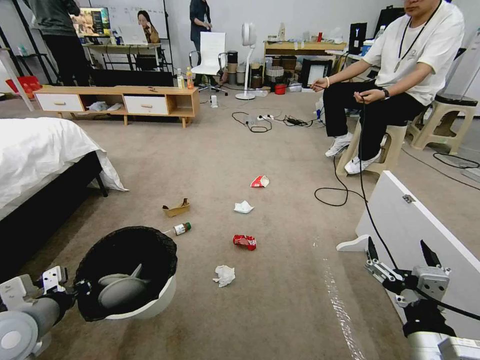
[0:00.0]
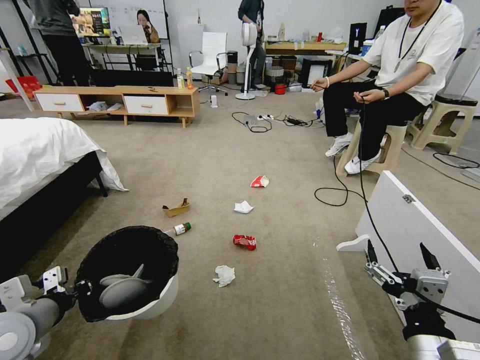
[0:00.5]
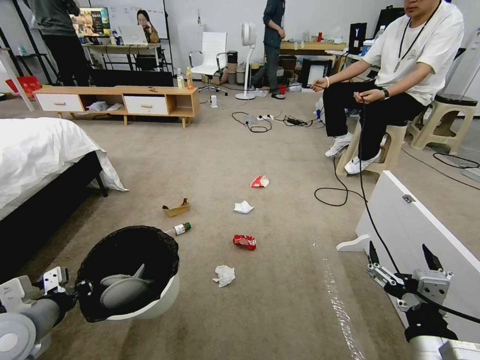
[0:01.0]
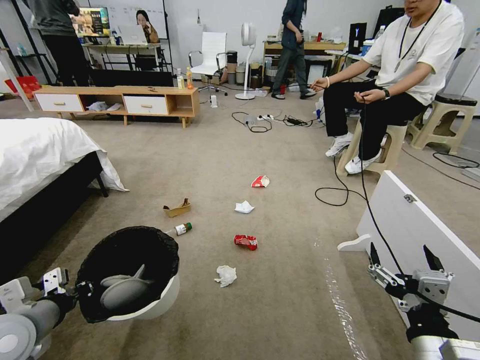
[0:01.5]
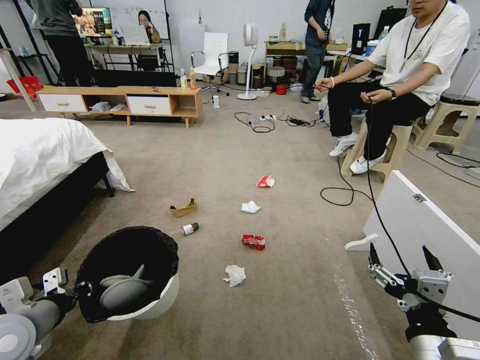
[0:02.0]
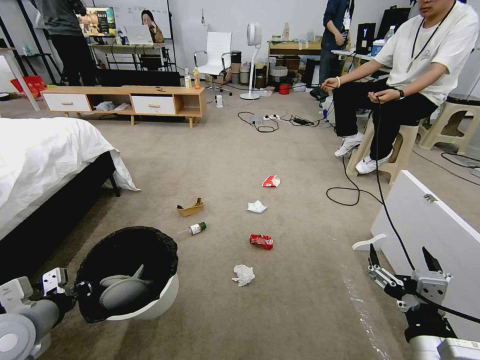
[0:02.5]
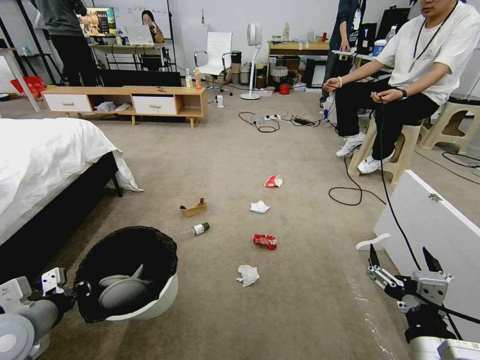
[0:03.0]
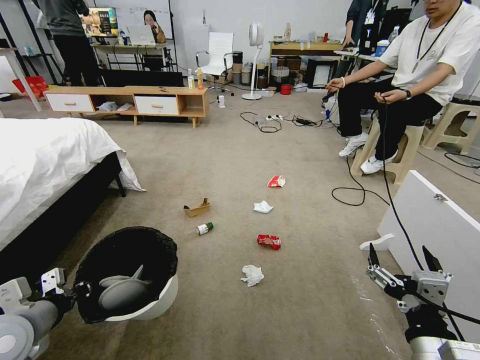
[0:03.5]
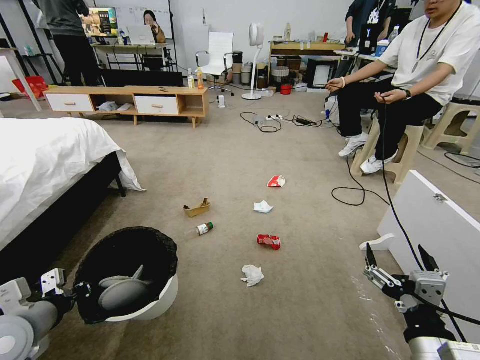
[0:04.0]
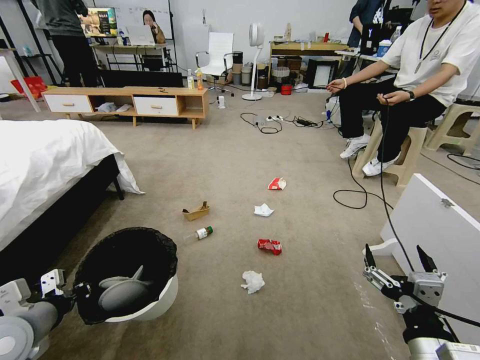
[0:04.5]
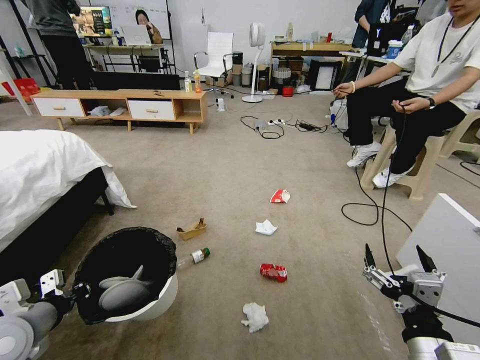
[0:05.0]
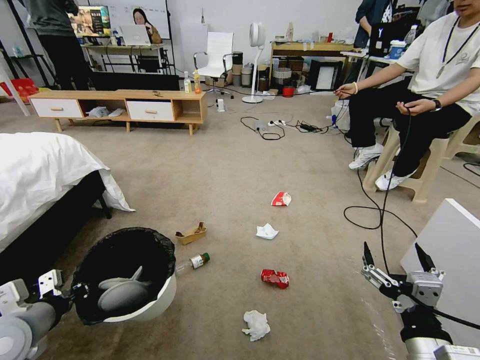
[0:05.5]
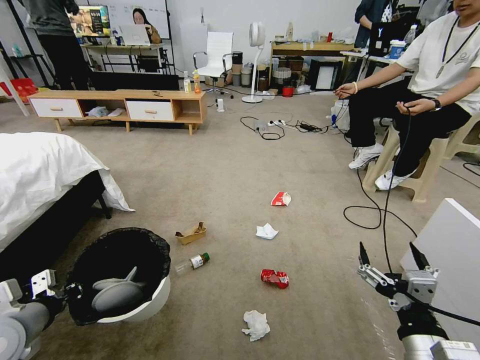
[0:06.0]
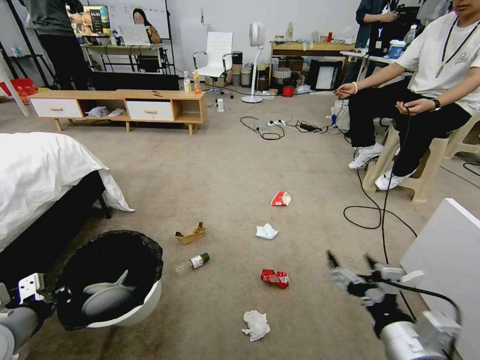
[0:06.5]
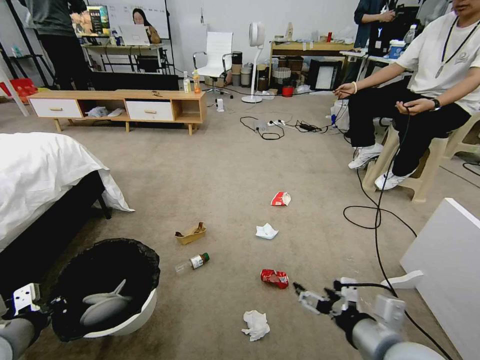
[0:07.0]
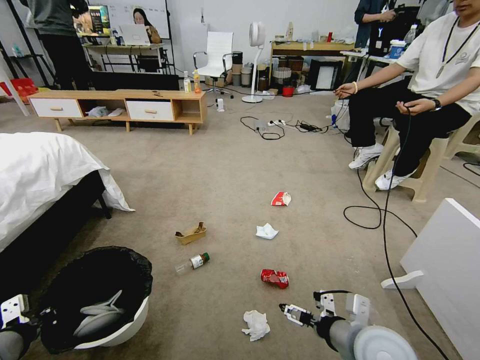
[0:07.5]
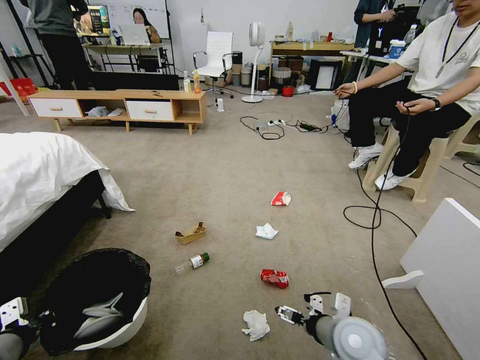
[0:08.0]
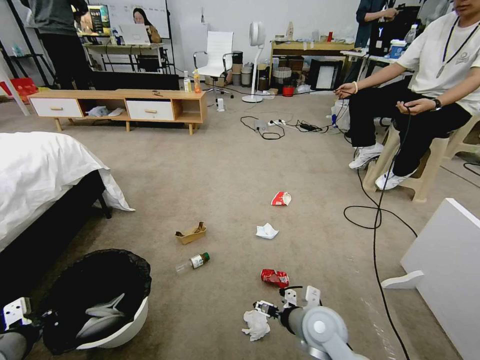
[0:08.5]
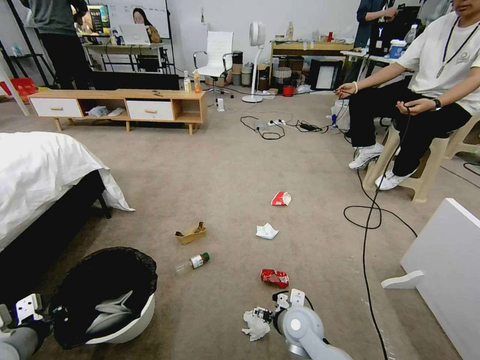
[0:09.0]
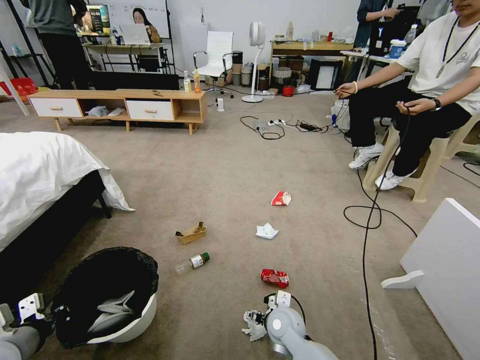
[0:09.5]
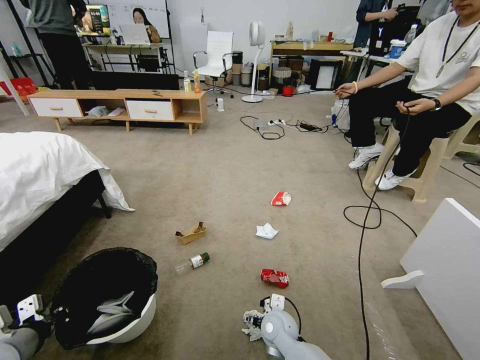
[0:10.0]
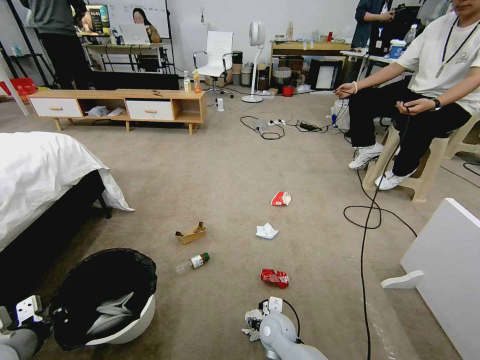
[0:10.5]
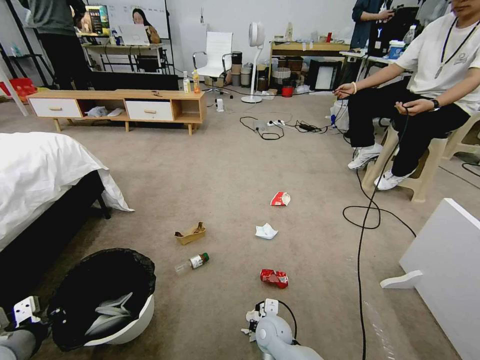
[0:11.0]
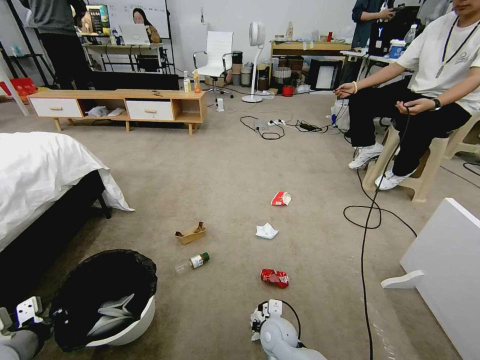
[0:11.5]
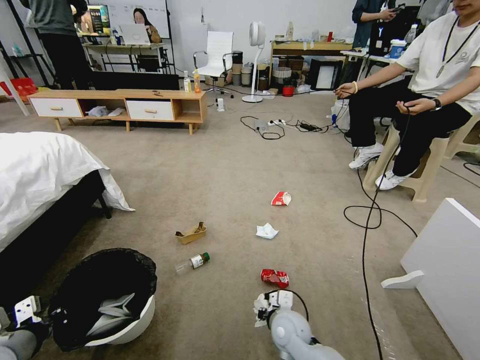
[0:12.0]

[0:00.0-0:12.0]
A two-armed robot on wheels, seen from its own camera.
Task of the whole recording: Pick up the trash bin and place the garbage on the floor into it.
0:06.0 to 0:08.0: The right gripper travels forward and downward by roughly 15 cm.
0:08.0 to 0:10.0: The right gripper moves to the left, downward and forward, some 20 cm.
0:10.0 to 0:12.0: The right gripper closes up.

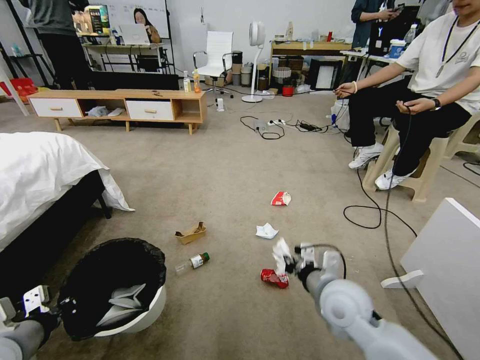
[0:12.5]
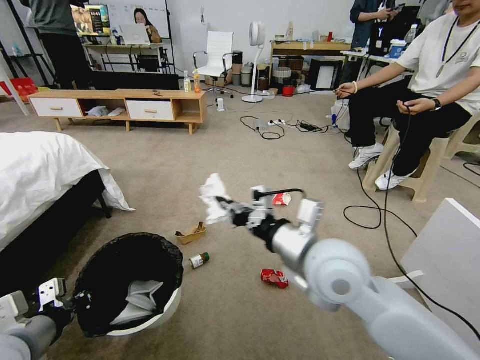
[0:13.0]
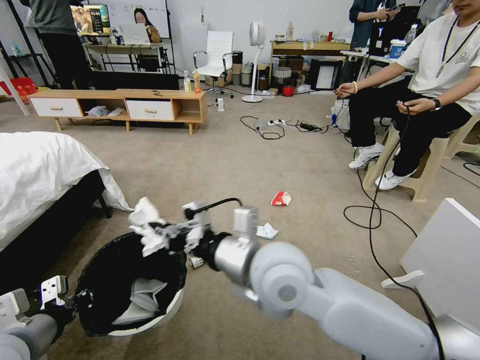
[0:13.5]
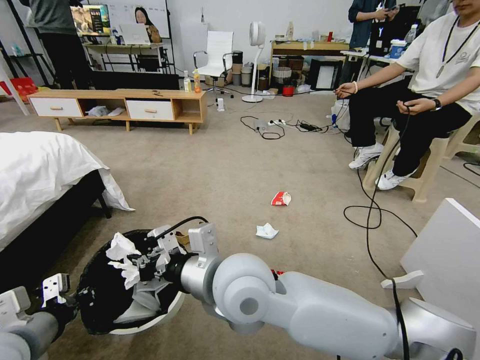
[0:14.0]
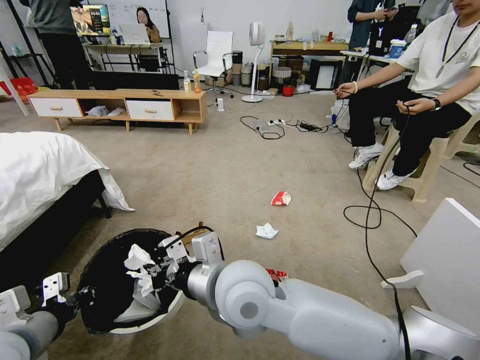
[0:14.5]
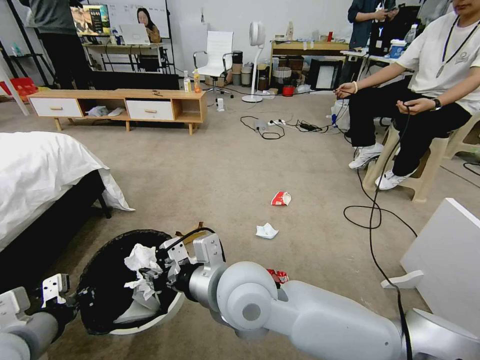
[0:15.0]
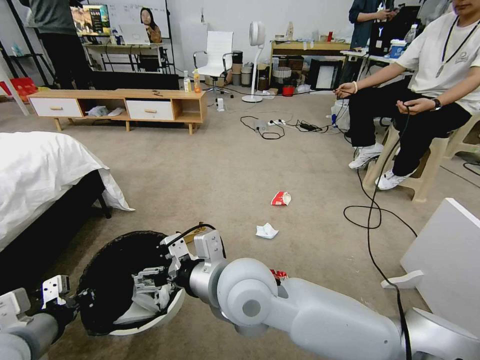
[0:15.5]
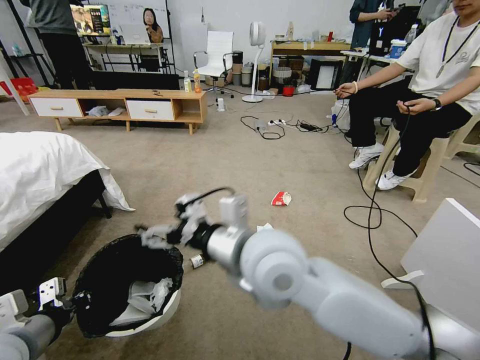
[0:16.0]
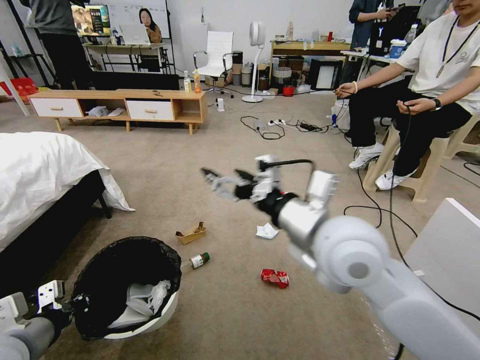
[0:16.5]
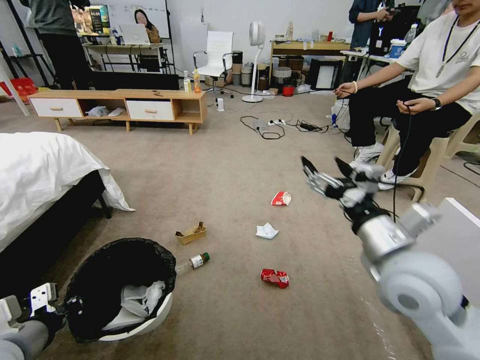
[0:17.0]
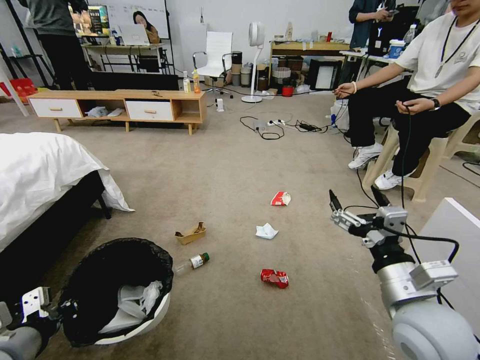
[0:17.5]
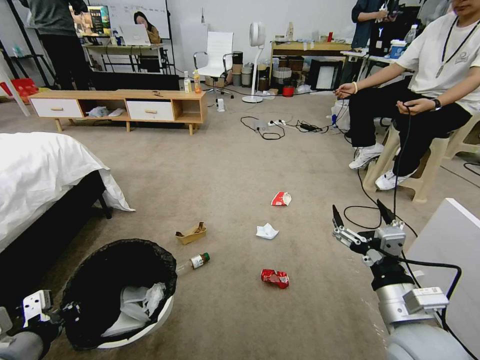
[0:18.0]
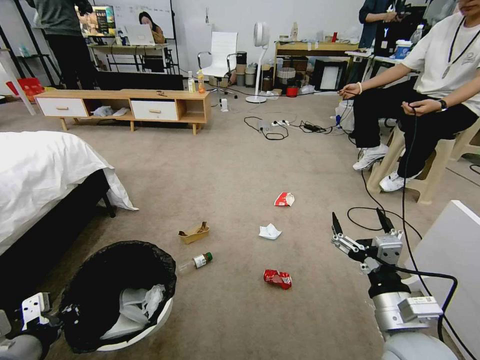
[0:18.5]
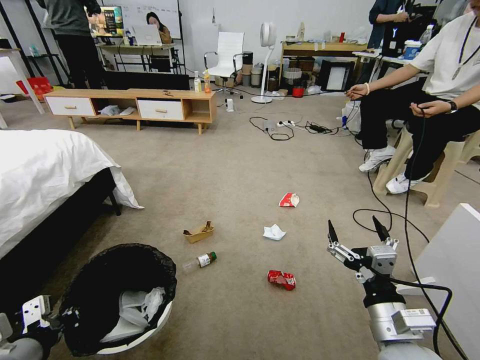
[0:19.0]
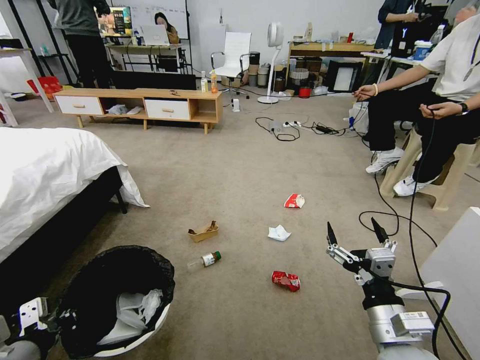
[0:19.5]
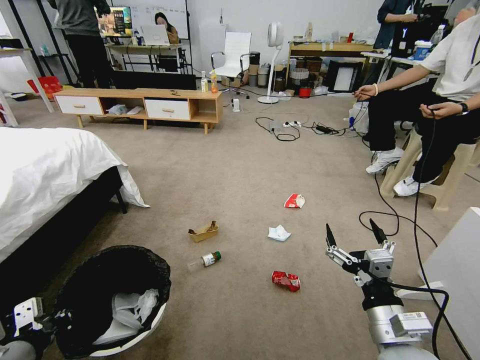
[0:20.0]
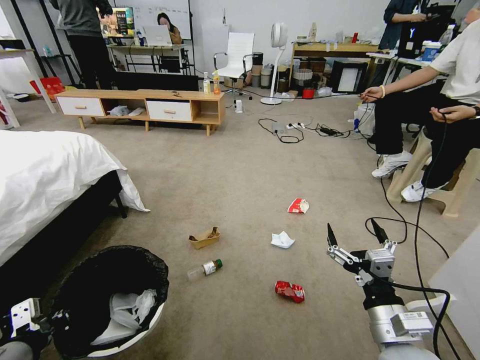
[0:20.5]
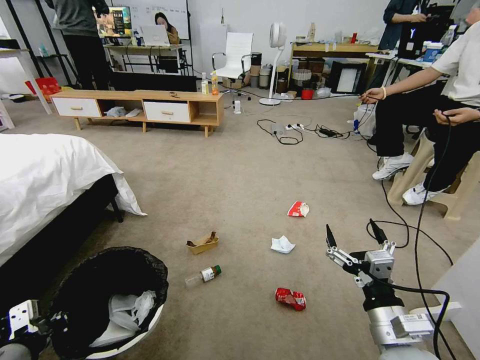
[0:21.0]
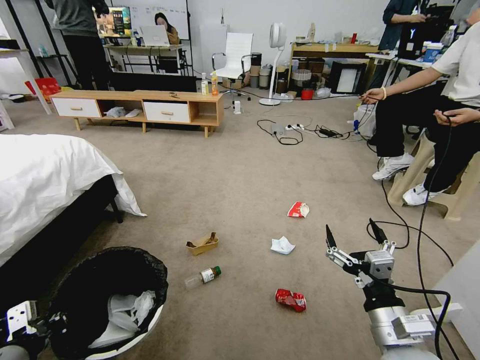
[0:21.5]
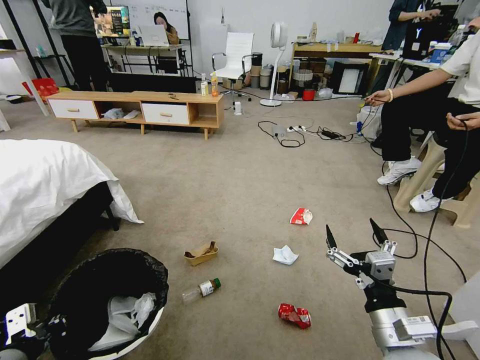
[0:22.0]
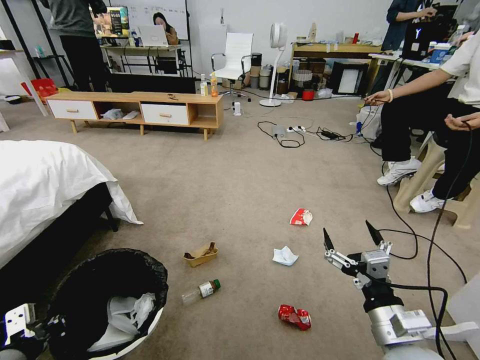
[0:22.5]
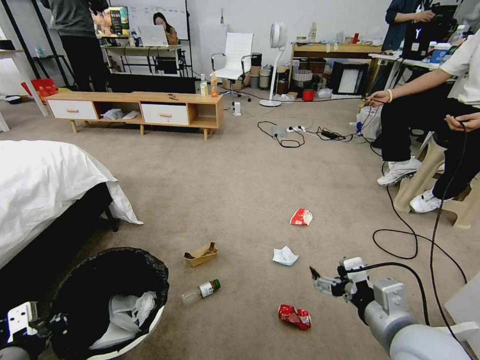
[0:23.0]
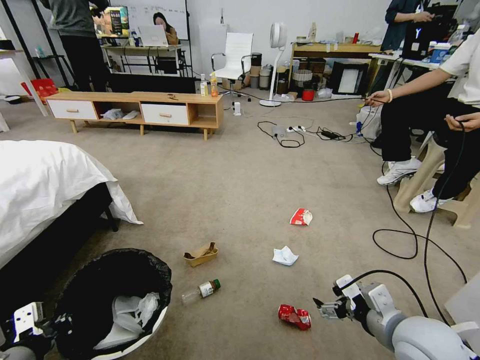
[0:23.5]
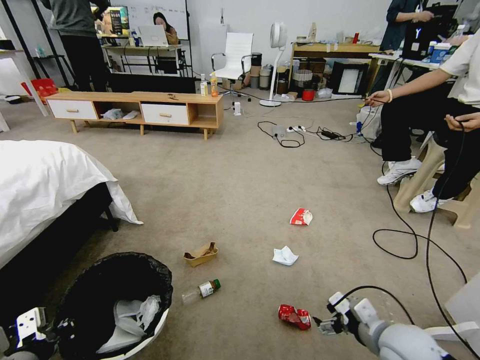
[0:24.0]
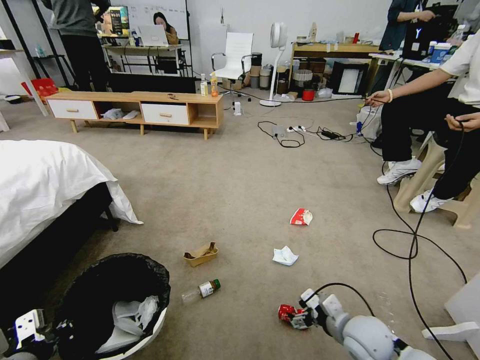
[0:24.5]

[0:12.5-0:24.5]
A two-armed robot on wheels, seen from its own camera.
Task of the whole recording: Pick up the trash bin and place the garbage on the floor into it.
0:12.5 to 0:14.5: The right gripper travels to the left and upward by roughly 25 cm; the left gripper ends up approximately 5 cm from where it was.
0:14.5 to 0:16.5: The right gripper shifts about 15 cm to the right and upward, and opens.
0:16.5 to 0:18.5: The right gripper is displaced downward, to the right and backward by about 25 cm.
0:22.5 to 0:24.5: The right gripper travels downward and forward by roughly 15 cm.

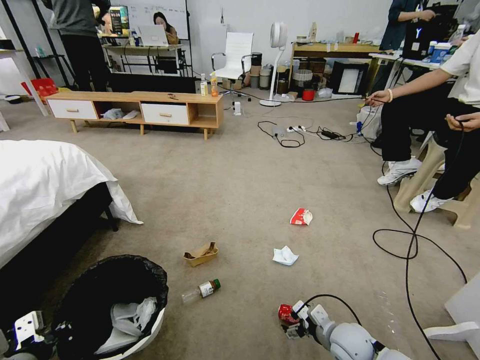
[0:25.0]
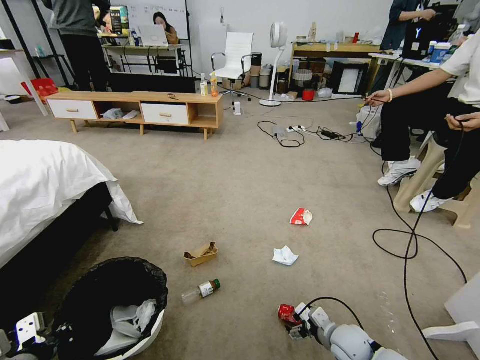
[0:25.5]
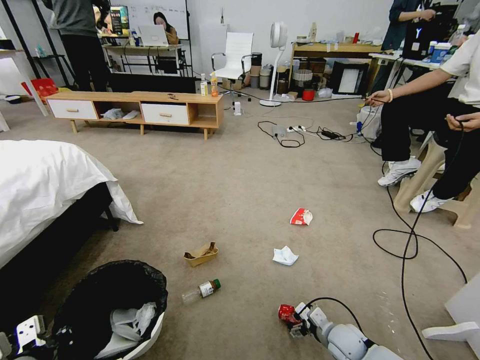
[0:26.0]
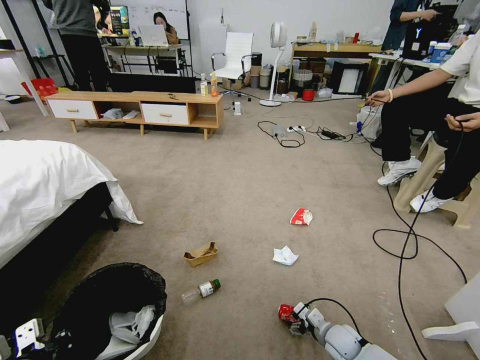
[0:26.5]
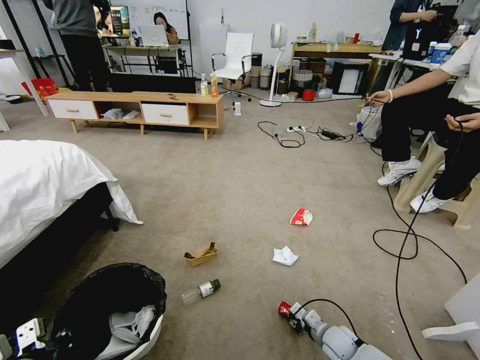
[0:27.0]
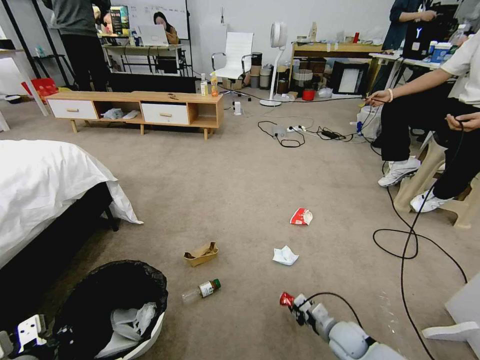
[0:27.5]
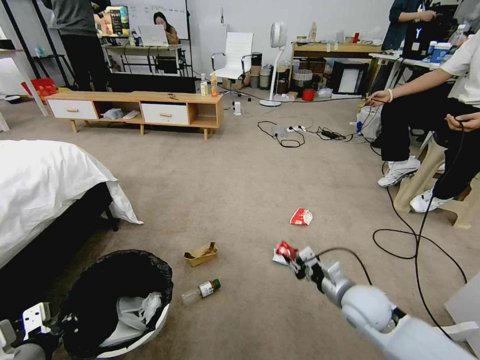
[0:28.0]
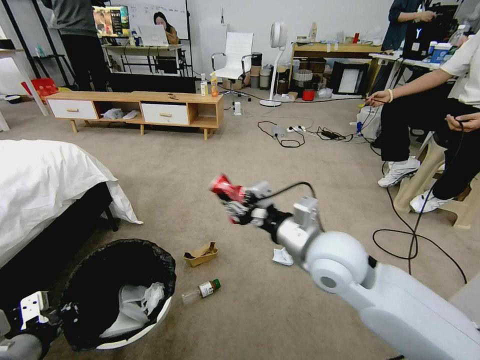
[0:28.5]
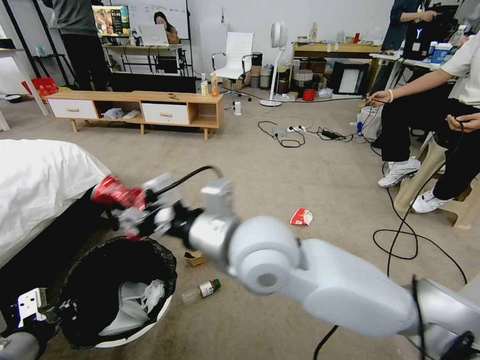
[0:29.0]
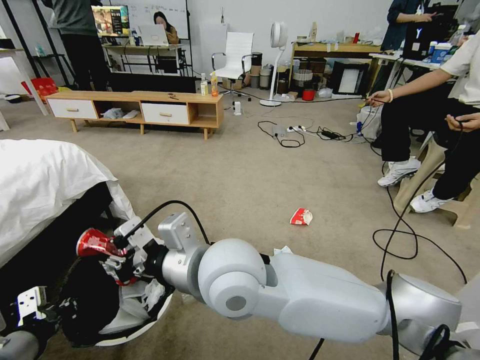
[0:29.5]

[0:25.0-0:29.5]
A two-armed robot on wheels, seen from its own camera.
Task of the whole recording: Pick up the trash bin and place the garbage on the floor into it.
0:25.0 to 0:27.0: The right gripper is displaced downward by approximately 10 cm, and closes up.
0:27.0 to 0:29.5: The right gripper shifts about 50 cm upward and to the left. The left gripper is displaced upward by about 5 cm.
